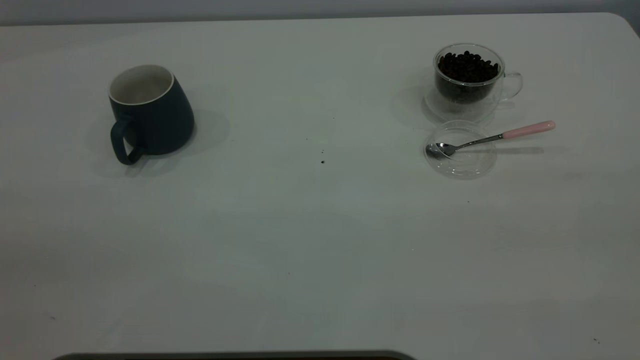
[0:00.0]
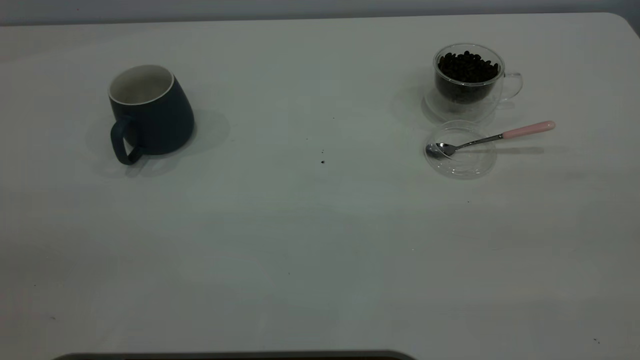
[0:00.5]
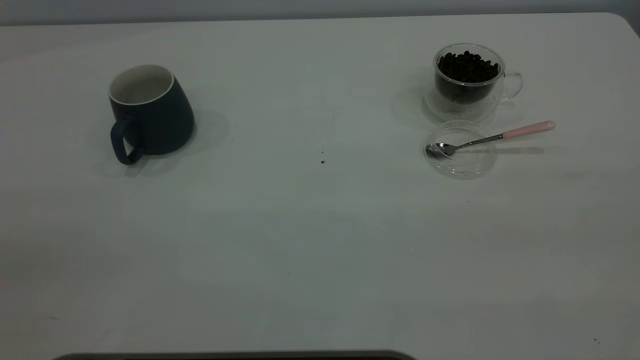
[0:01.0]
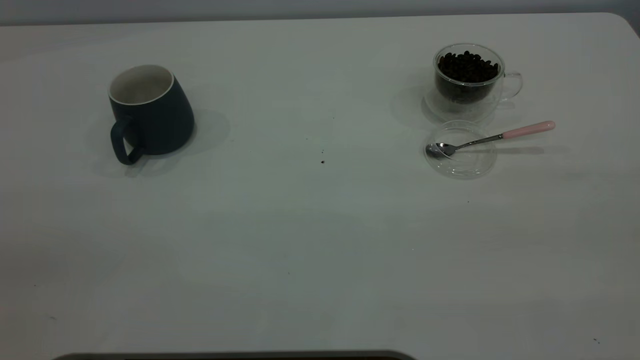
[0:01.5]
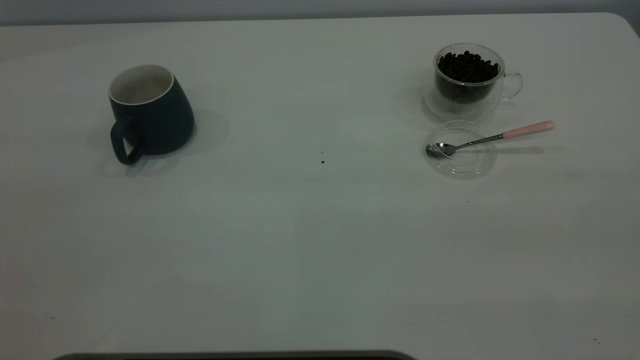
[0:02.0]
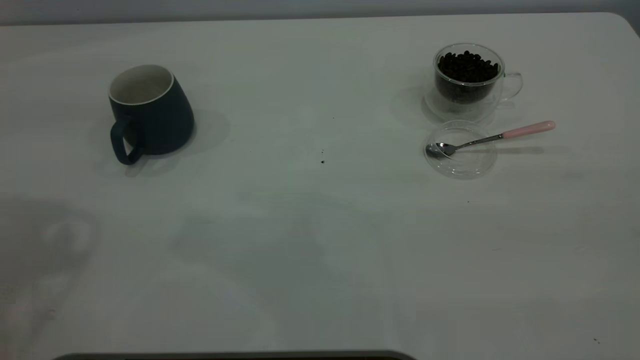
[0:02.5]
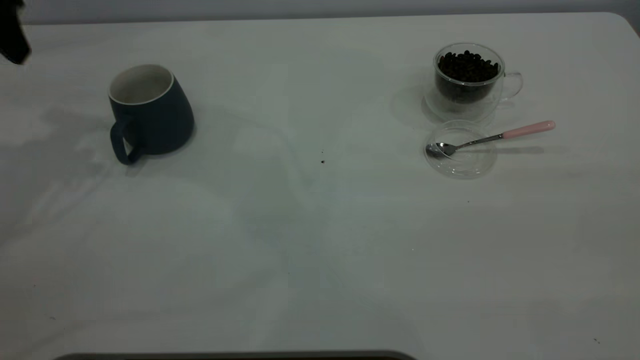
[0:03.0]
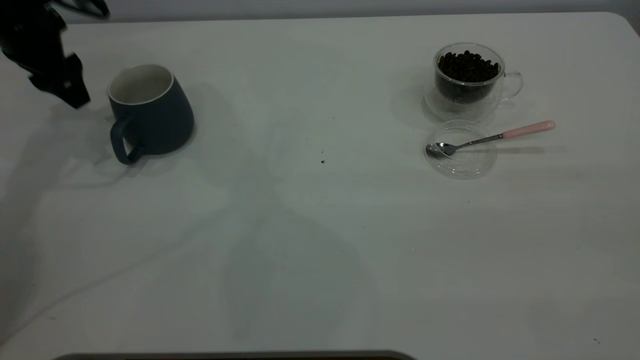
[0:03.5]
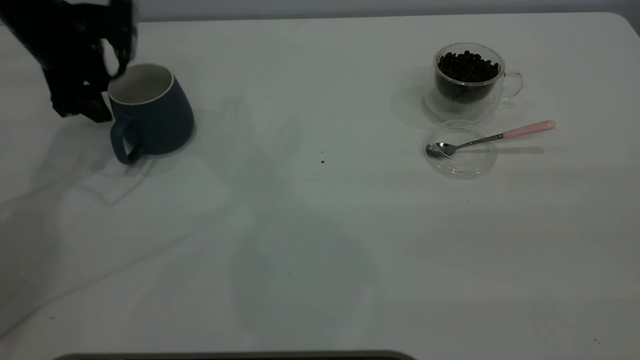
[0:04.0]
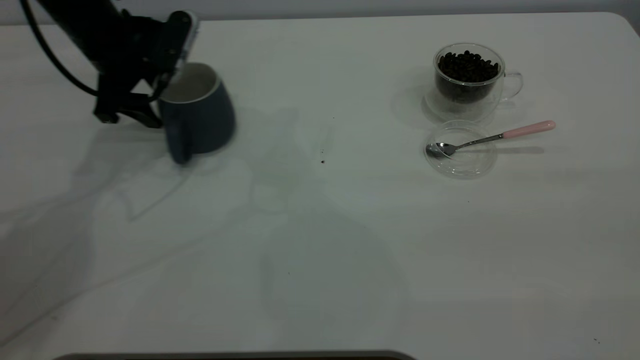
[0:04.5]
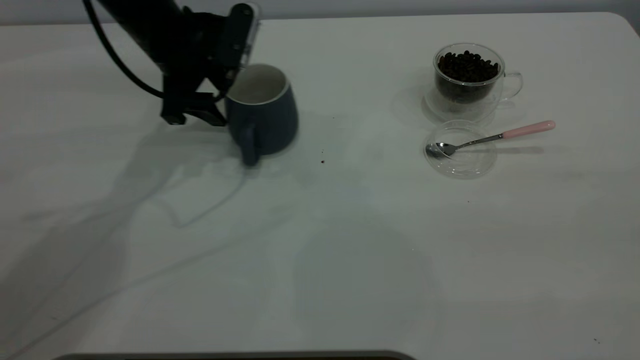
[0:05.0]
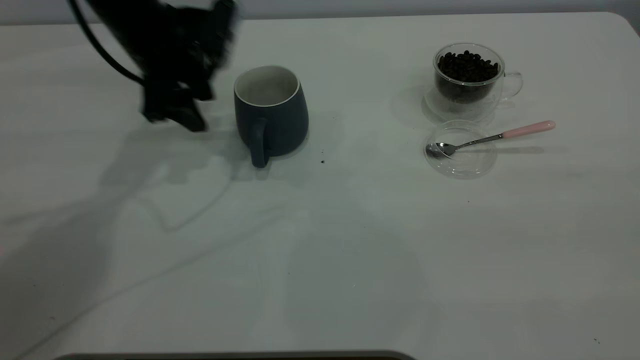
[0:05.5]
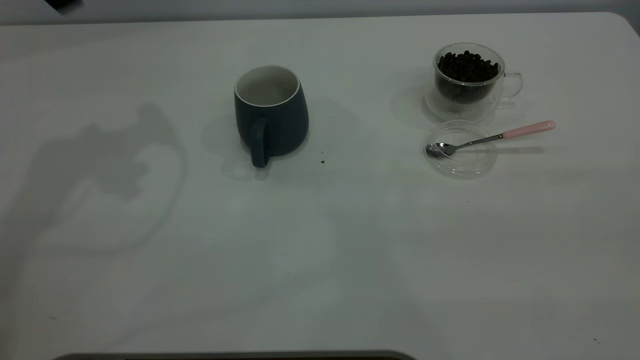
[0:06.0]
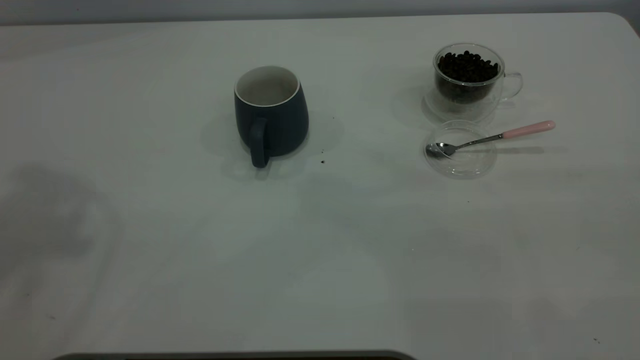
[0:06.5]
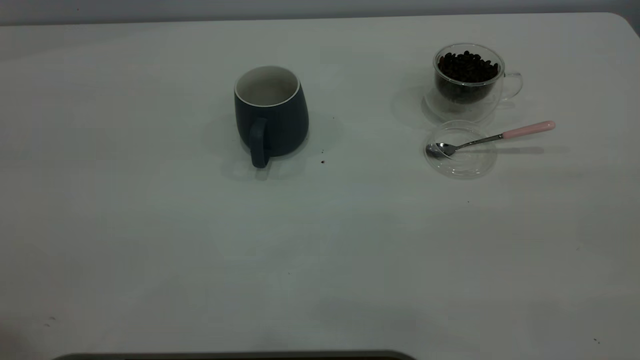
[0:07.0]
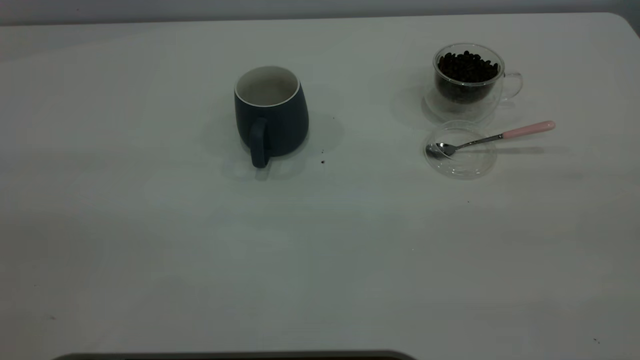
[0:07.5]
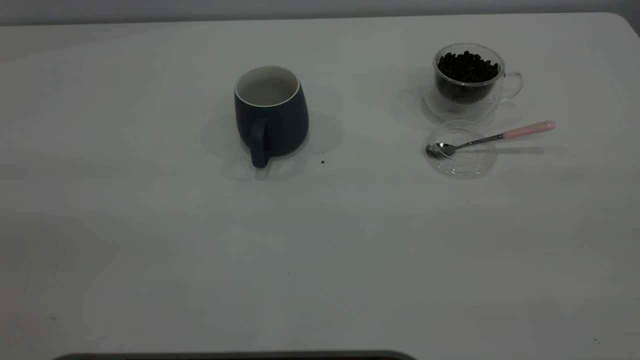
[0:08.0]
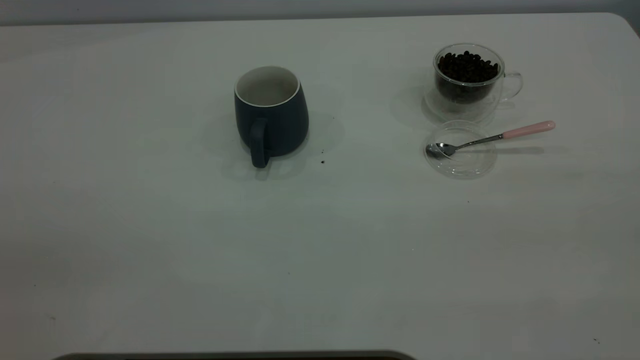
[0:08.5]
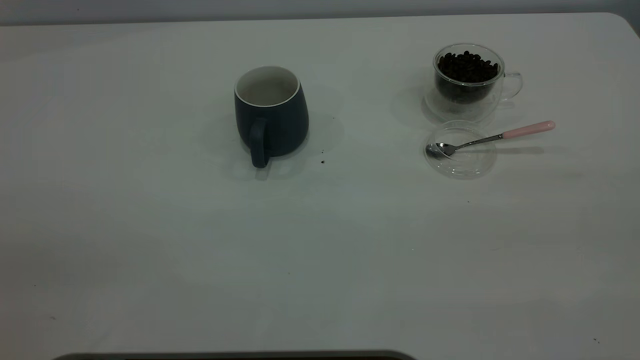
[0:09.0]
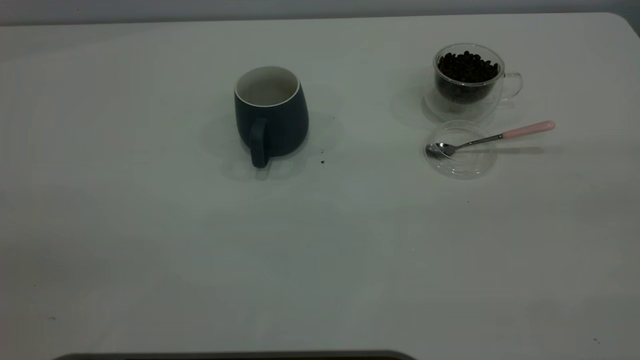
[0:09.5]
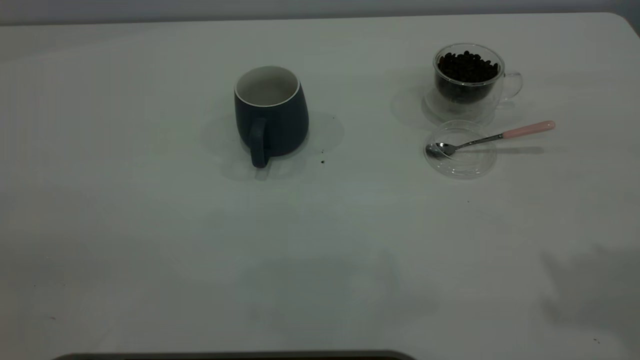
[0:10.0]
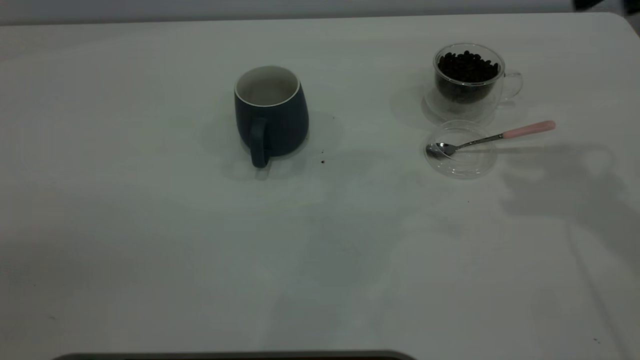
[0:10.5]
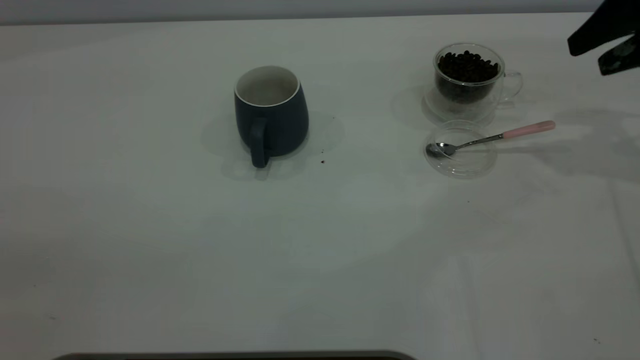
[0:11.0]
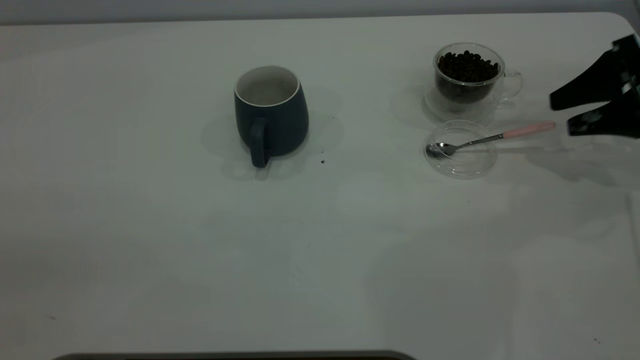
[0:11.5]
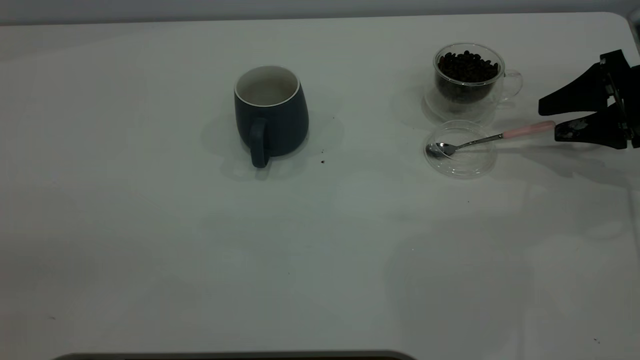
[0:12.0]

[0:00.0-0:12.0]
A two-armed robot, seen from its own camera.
Task of the whole recording: the left gripper place the grey cup in the center of the table, the right gripper take the pink spoon from the cup lid and scoop out the coffee beans from the coffee cup and put them into the grey cup, the right gripper put the spoon back into the cup lid.
Step, 0:00.0 to 0:05.0: Move the cup to the center of view.
0:02.0 to 0:04.0: The left gripper heads forward and downward, covering some 40 cm.
0:04.0 to 0:06.0: The left gripper travels upward by approximately 20 cm.
0:10.0 to 0:12.0: The right gripper goes roughly 35 cm downward and forward.

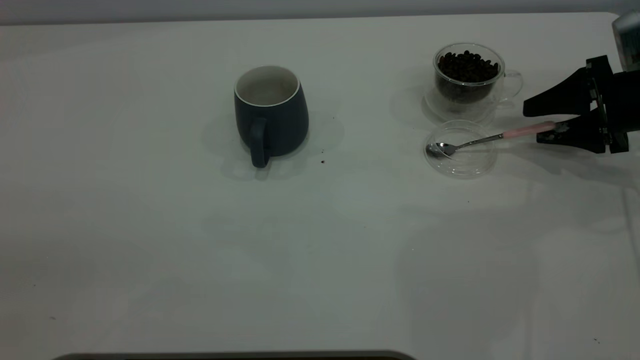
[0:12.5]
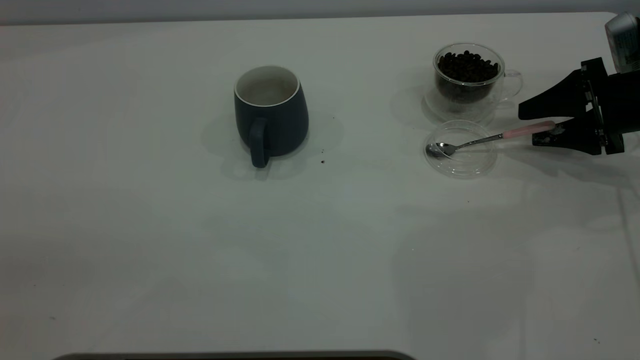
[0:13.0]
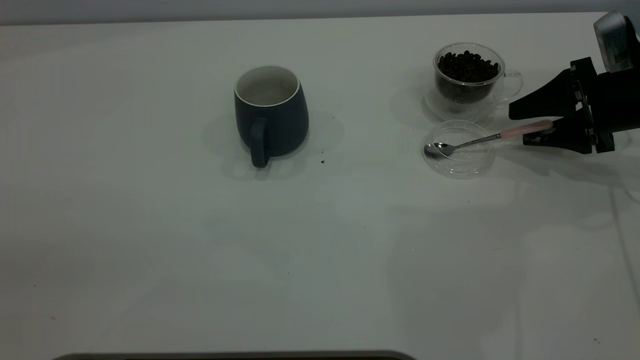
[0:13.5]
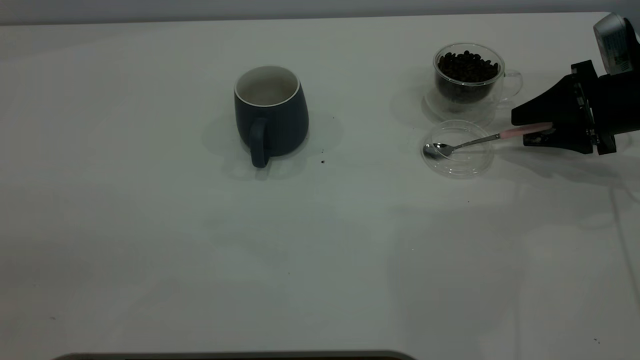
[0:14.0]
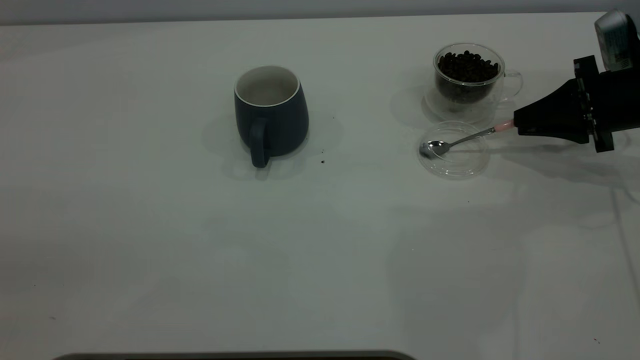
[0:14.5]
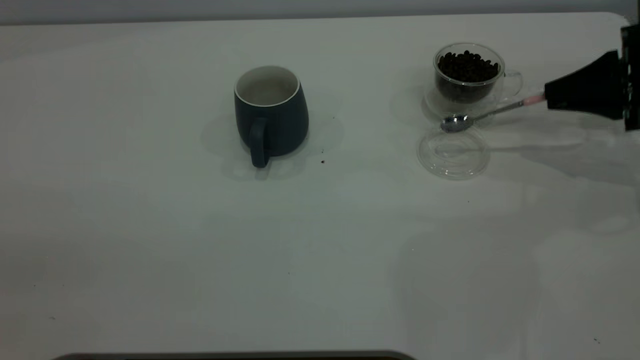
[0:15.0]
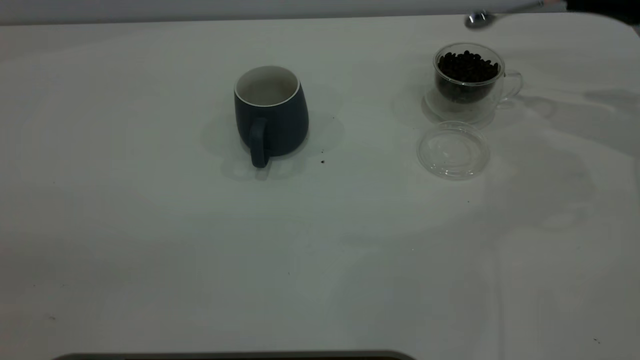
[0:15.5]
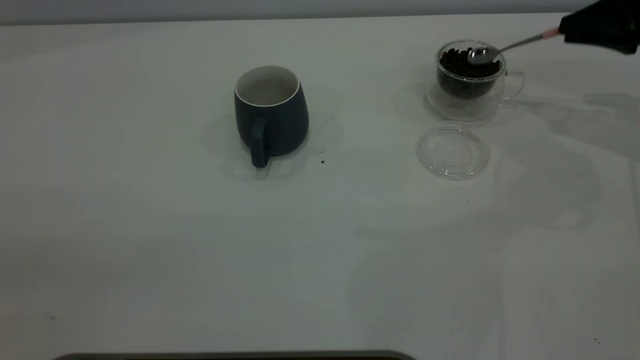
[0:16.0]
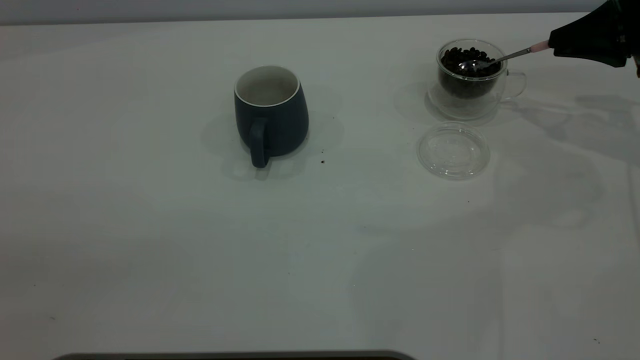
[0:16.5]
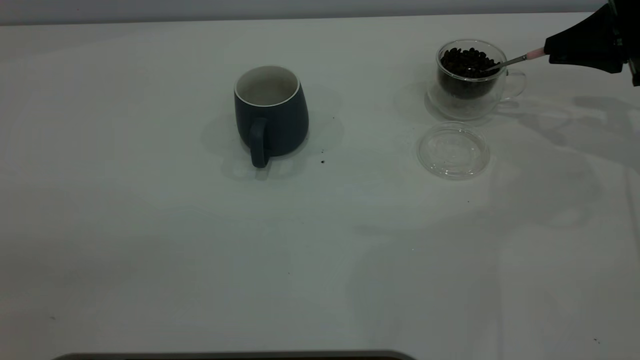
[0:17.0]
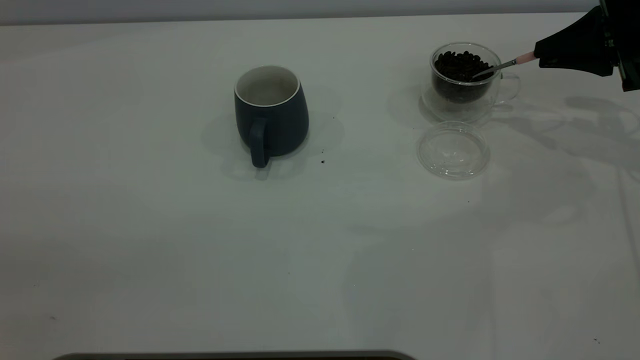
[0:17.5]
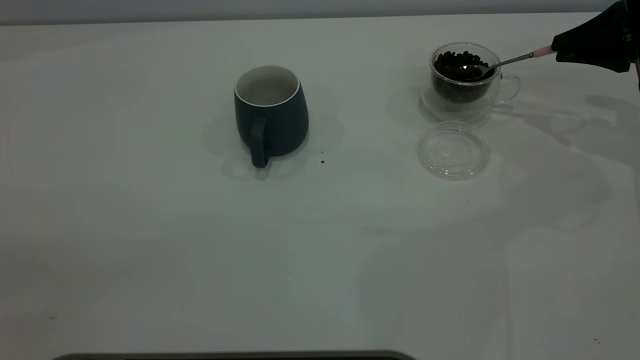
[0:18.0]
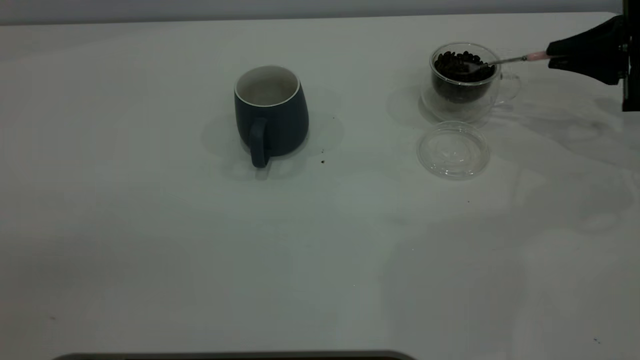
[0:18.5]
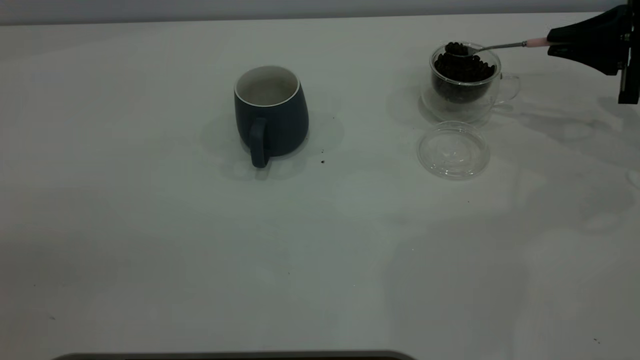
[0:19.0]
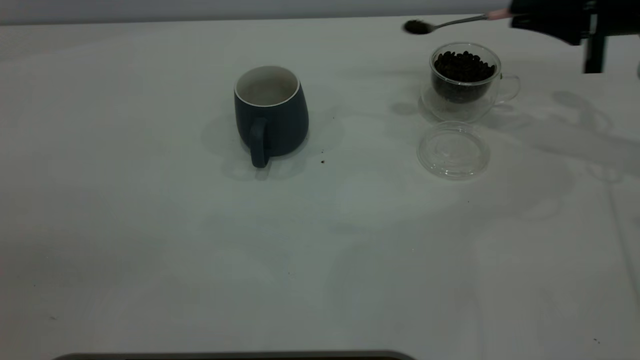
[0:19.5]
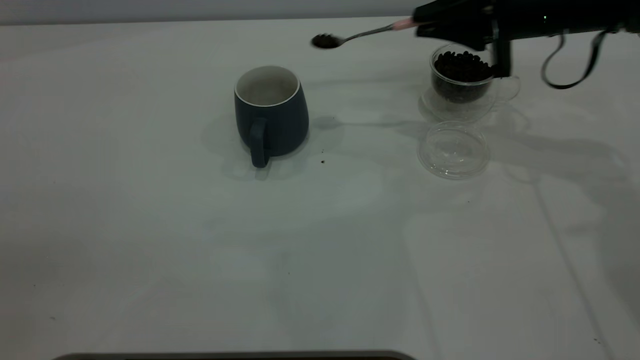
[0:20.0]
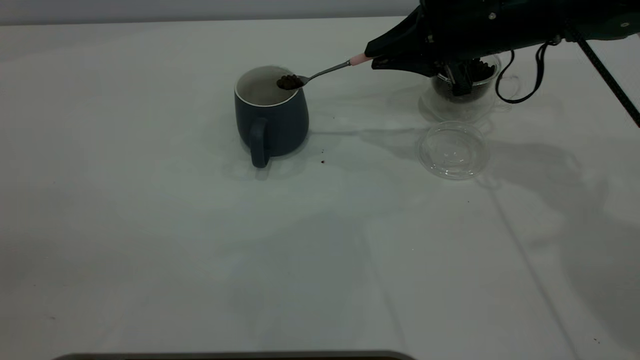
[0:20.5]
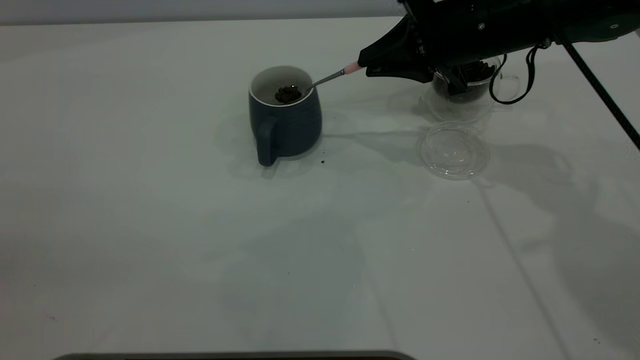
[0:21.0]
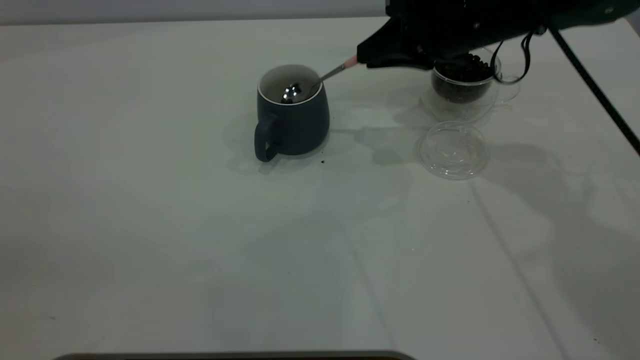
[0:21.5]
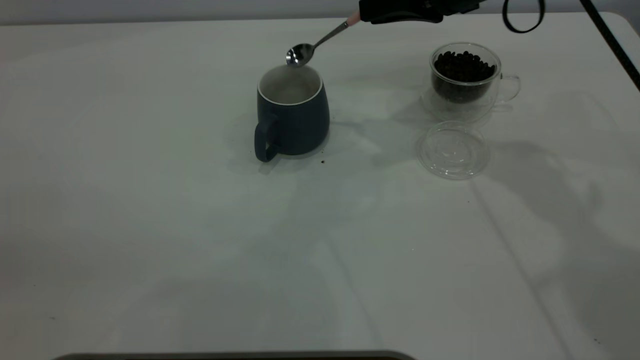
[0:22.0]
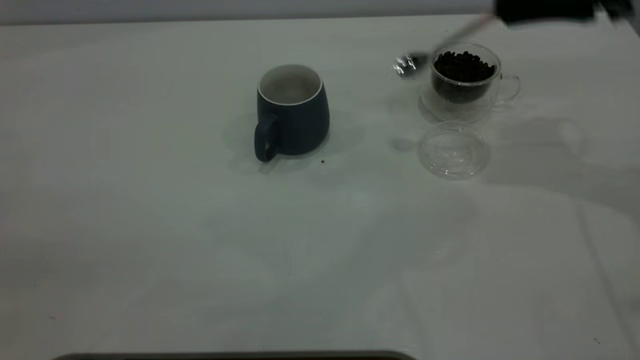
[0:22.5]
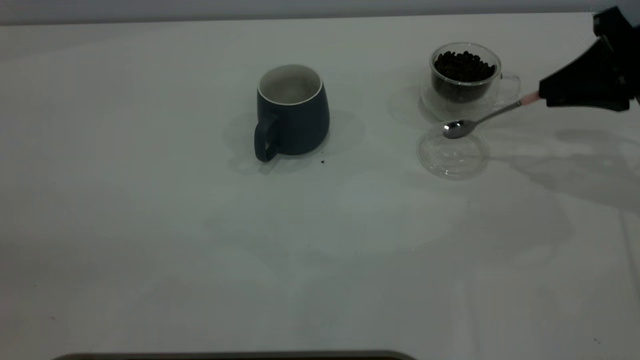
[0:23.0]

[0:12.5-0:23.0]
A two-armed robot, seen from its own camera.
Task of the whole recording: the left gripper place the grey cup in the center of the table, the right gripper take the pink spoon from the cup lid and scoop out the coffee beans from the coffee cup and put them into the grey cup, the right gripper put the spoon back into the cup lid.
Step, 0:12.5 to 0:15.0: Pick up the spoon.
Step, 0:15.5 to 0:22.0: Scoop a spoonful of beans into the cup.
0:12.5 to 0:14.5: The right gripper closes.
0:14.5 to 0:16.5: The right gripper heads upward, covering some 5 cm.
0:19.0 to 0:21.0: The right gripper goes about 20 cm to the left.
0:21.0 to 0:23.0: The right gripper is displaced to the right by about 15 cm.
